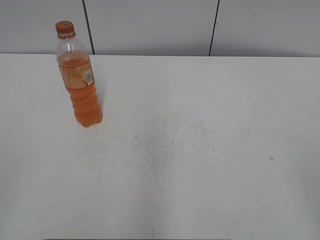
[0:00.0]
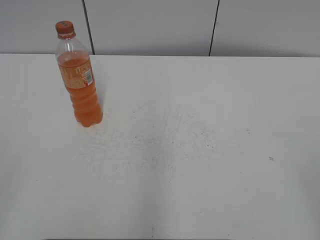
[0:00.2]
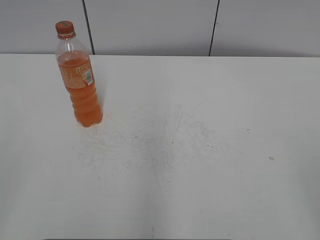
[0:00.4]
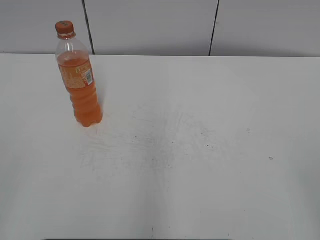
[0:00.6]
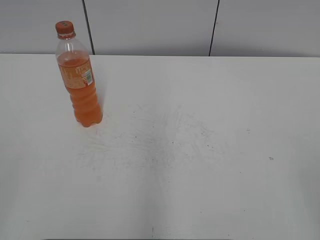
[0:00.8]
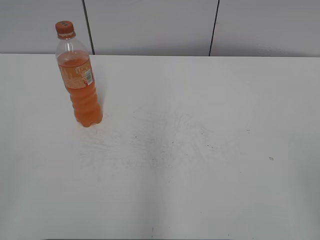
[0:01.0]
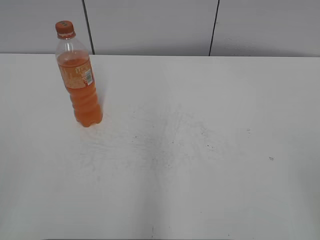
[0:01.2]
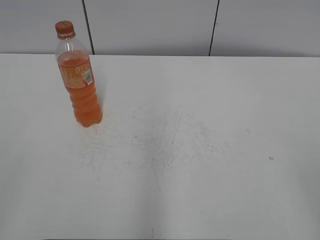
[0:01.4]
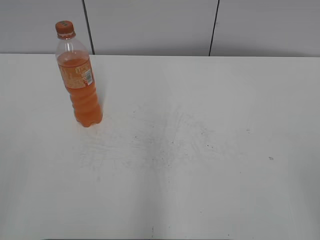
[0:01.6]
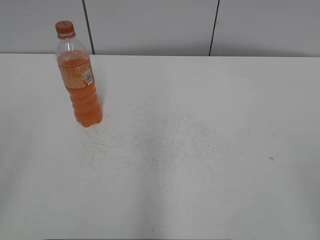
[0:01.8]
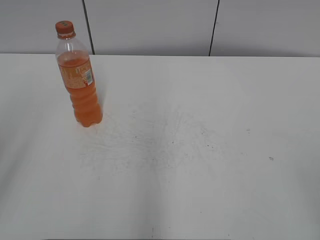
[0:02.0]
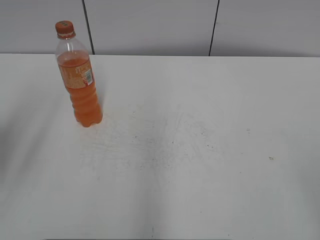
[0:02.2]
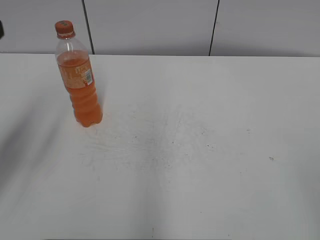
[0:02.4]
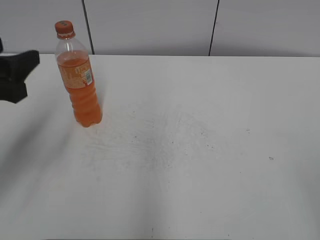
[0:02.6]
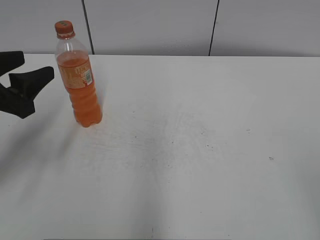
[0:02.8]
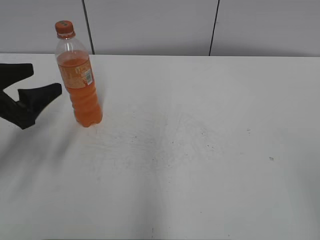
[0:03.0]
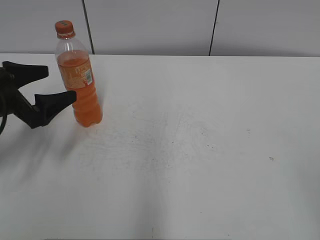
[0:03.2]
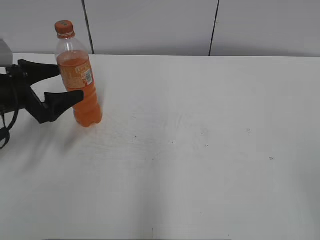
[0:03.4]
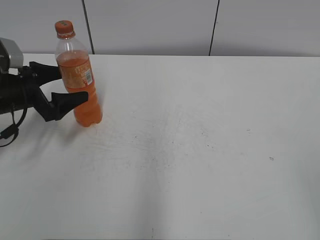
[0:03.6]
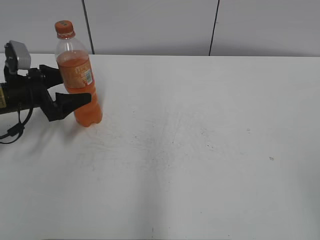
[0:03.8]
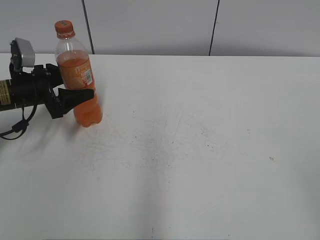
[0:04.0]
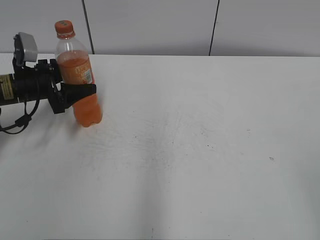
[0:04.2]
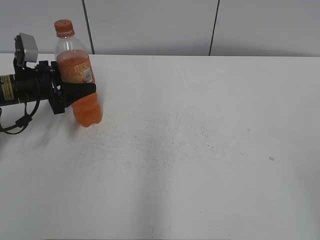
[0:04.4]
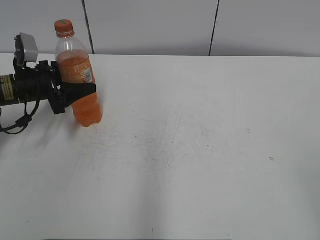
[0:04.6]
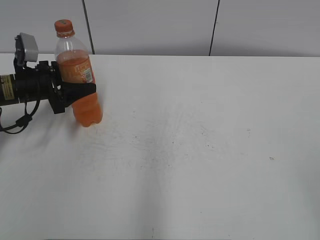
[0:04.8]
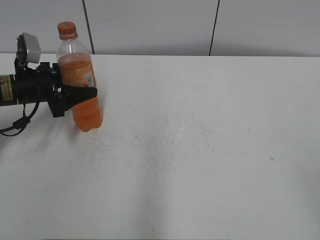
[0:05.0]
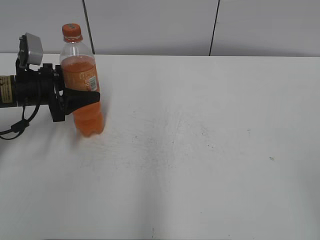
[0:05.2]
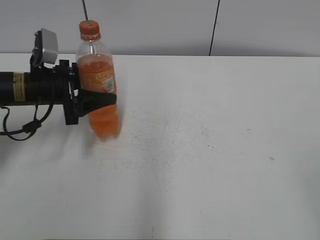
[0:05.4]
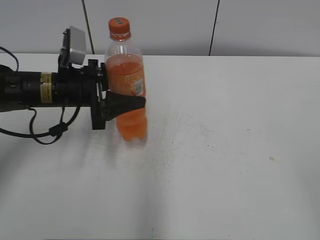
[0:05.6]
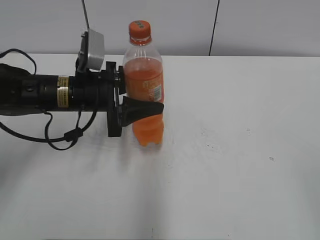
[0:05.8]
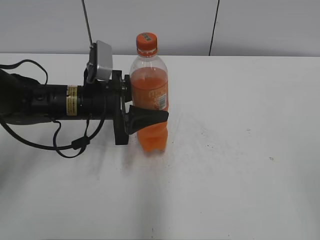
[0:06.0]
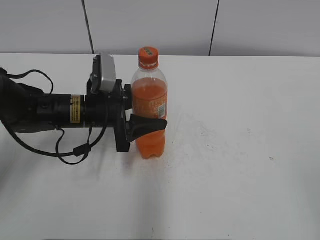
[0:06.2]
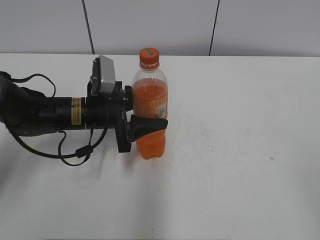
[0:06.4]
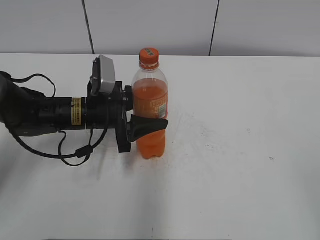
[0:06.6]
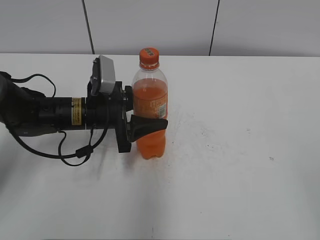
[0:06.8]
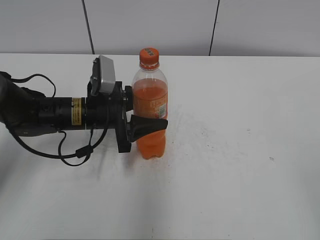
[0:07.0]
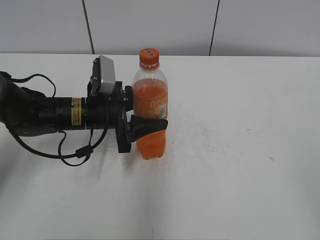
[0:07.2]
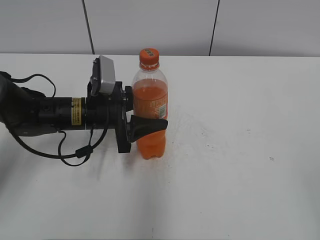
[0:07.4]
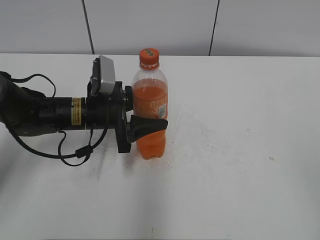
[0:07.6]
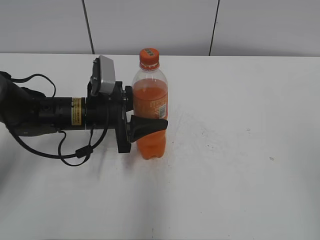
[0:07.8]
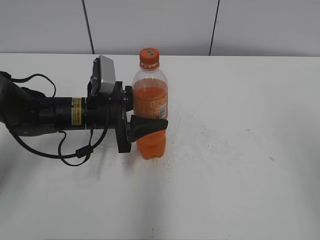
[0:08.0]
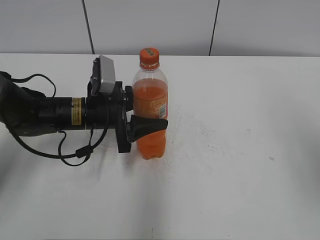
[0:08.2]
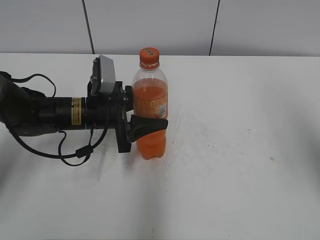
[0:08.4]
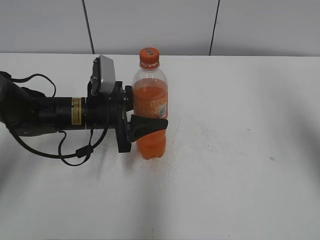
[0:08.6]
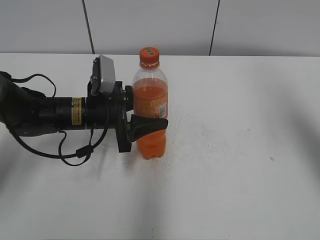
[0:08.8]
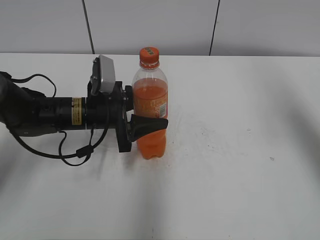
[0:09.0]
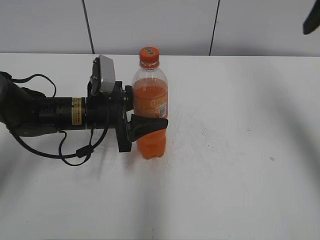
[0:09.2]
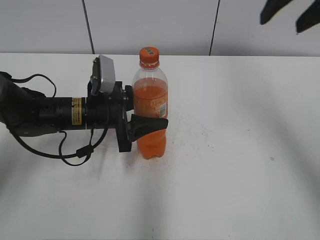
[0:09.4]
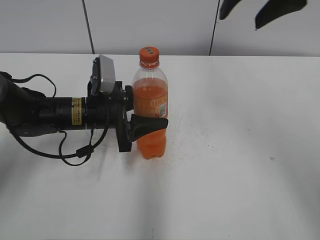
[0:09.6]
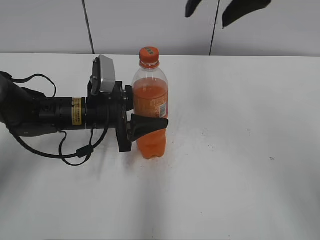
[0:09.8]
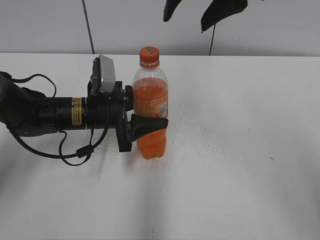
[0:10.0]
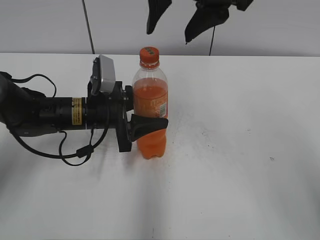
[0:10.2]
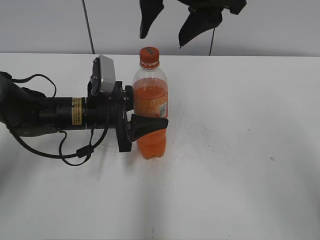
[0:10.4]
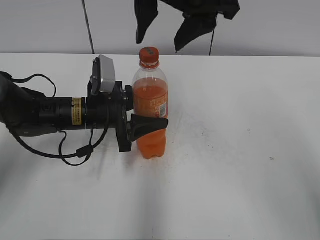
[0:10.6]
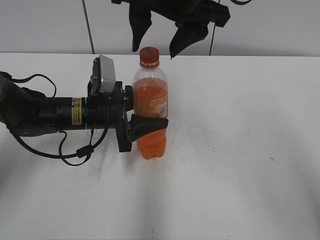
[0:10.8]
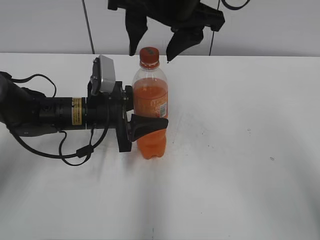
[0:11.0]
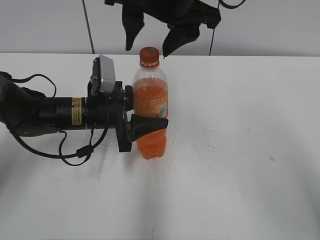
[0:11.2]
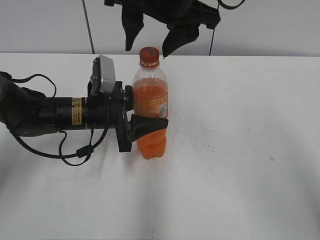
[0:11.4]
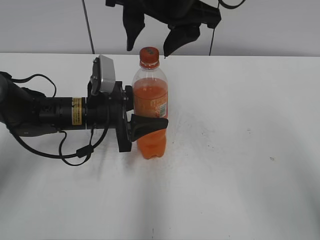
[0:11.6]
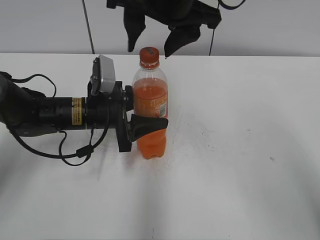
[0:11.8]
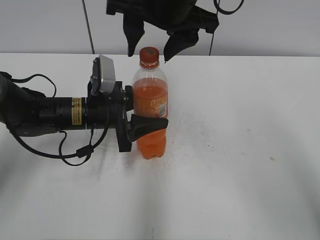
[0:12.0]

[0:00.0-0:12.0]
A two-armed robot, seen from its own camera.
Step, 0:00.0 to 0:04.4: Grab the Mirinda with the left hand.
Step, 0:04.6 to 0:06.6: Move the Mirinda from left to right.
0:01.6 to 0:03.0: The left gripper moves forward and downward, some 30 cm.
0:03.0 to 0:04.4: The left gripper travels forward and downward by about 15 cm, and opens, then closes once more.
0:04.4 to 0:06.0: The left gripper goes roughly 15 cm to the right and backward.
0:06.0 to 0:07.6: The grippers stay close to where they were, moving slightly.
0:07.6 to 0:09.0: The right gripper goes about 30 cm forward.
0:09.0 to 0:10.4: The right gripper moves to the left, approximately 25 cm.
0:10.4 to 0:12.0: The grippers stay close to where they were, moving slightly.

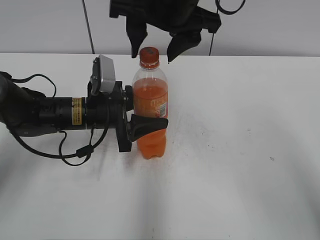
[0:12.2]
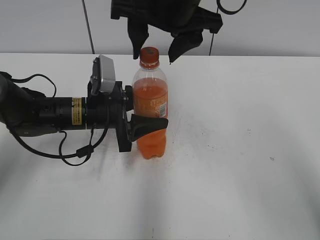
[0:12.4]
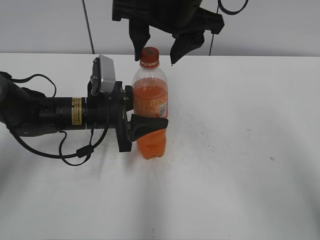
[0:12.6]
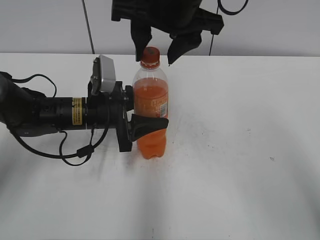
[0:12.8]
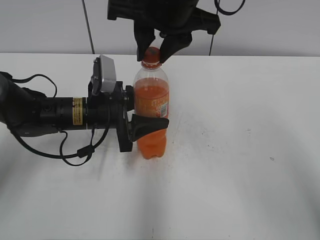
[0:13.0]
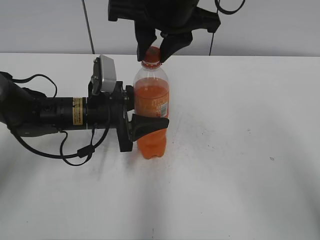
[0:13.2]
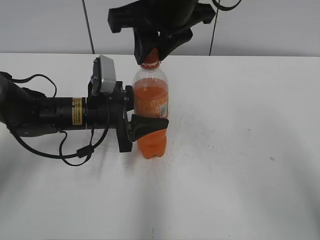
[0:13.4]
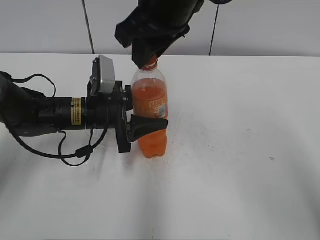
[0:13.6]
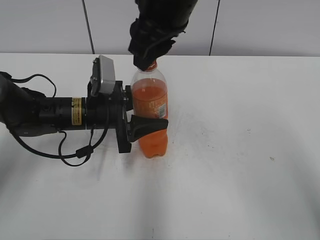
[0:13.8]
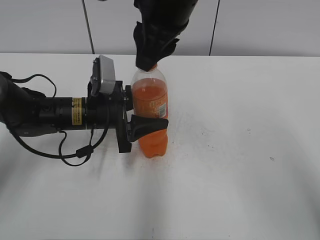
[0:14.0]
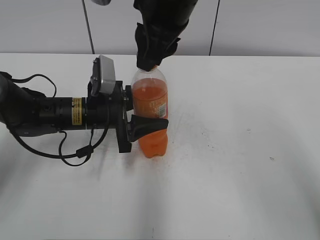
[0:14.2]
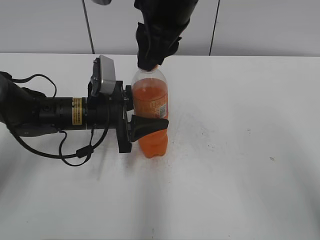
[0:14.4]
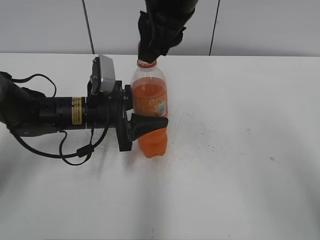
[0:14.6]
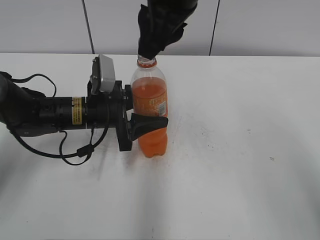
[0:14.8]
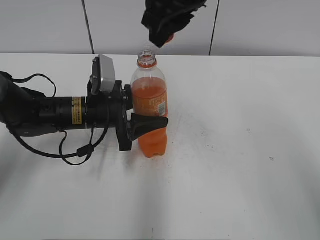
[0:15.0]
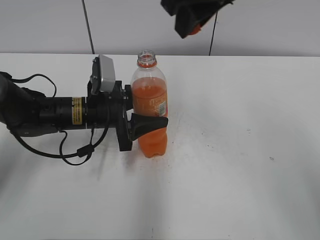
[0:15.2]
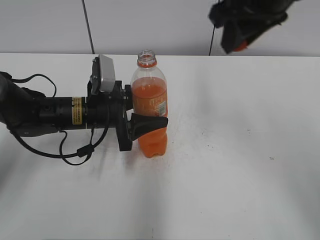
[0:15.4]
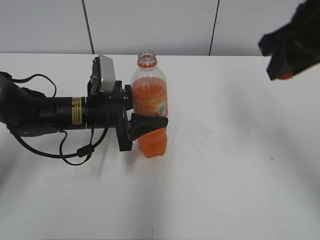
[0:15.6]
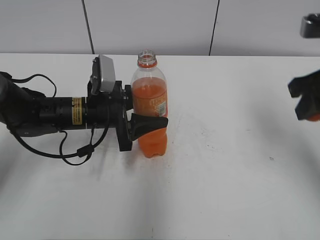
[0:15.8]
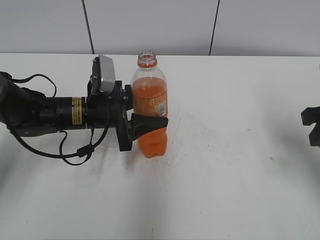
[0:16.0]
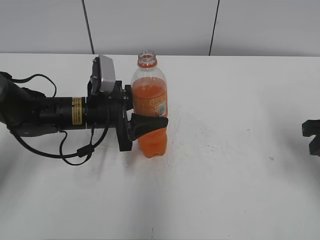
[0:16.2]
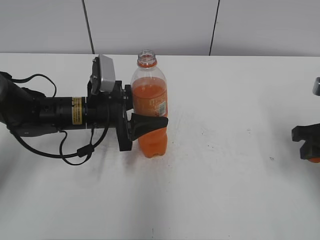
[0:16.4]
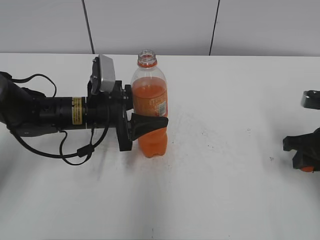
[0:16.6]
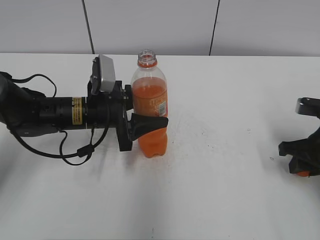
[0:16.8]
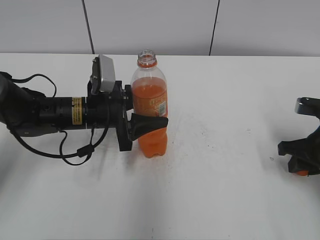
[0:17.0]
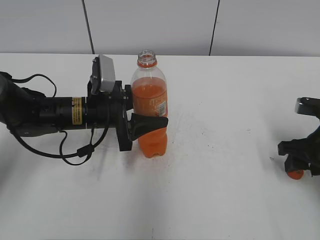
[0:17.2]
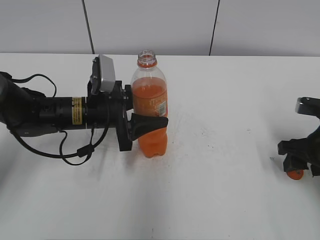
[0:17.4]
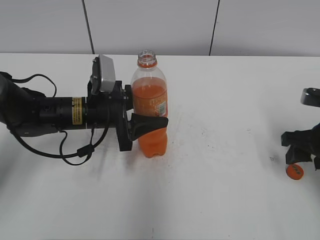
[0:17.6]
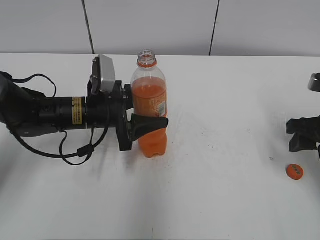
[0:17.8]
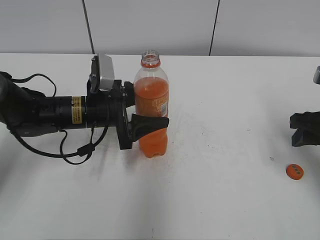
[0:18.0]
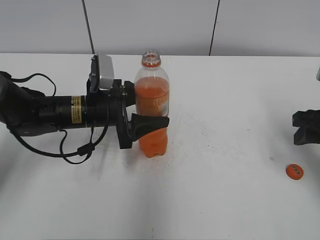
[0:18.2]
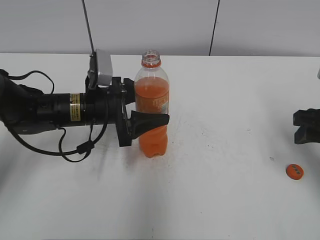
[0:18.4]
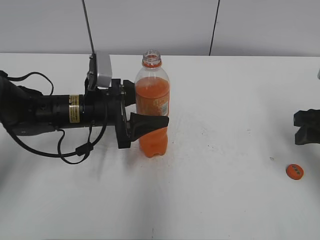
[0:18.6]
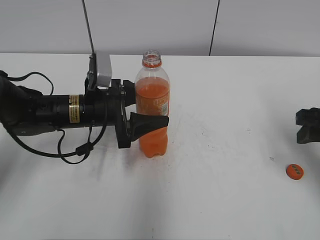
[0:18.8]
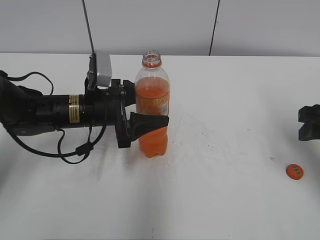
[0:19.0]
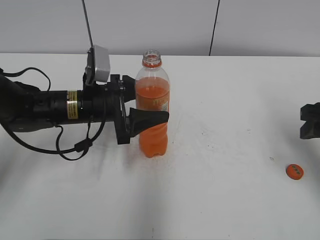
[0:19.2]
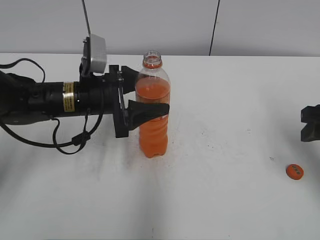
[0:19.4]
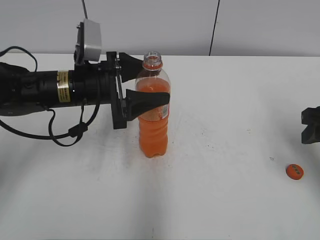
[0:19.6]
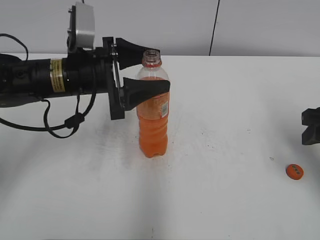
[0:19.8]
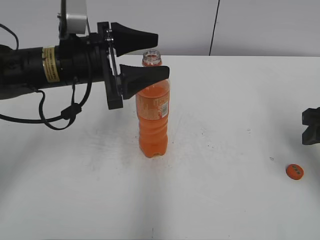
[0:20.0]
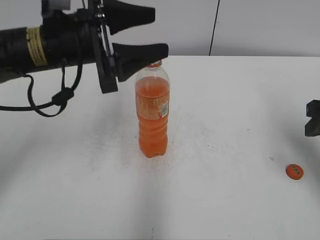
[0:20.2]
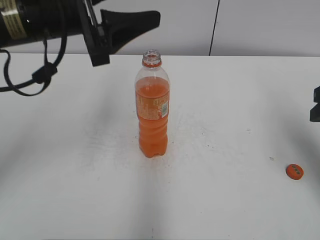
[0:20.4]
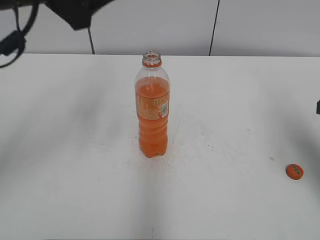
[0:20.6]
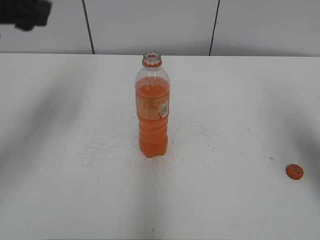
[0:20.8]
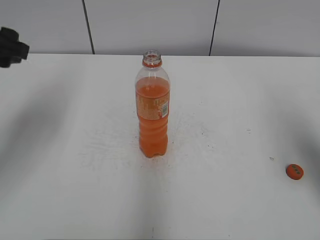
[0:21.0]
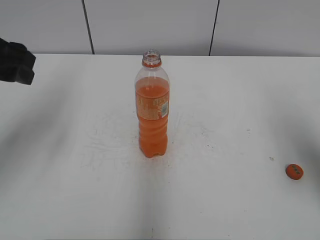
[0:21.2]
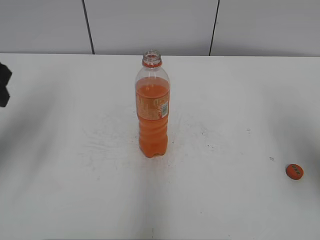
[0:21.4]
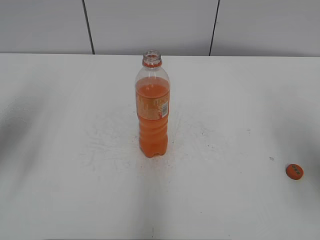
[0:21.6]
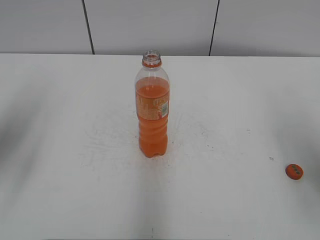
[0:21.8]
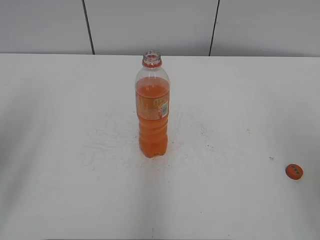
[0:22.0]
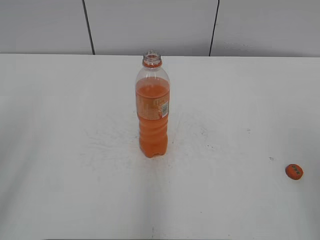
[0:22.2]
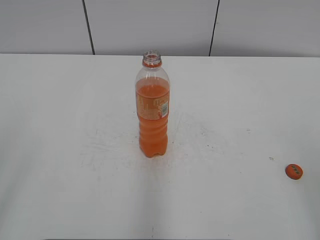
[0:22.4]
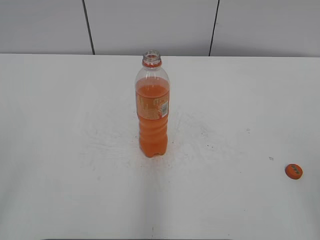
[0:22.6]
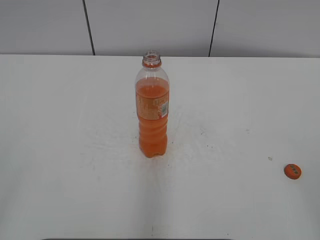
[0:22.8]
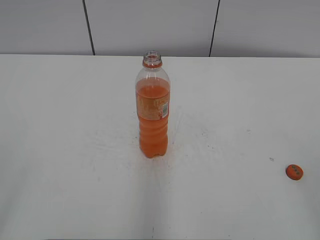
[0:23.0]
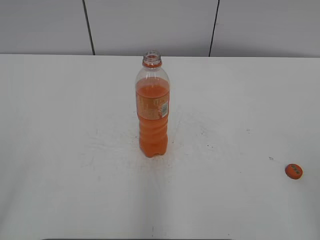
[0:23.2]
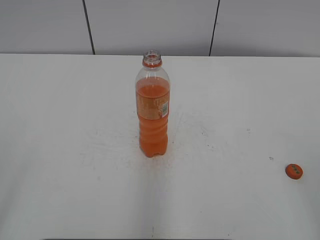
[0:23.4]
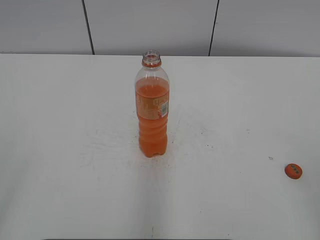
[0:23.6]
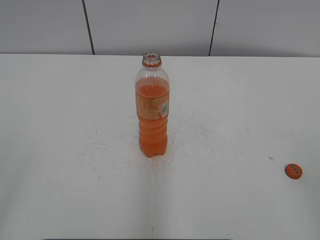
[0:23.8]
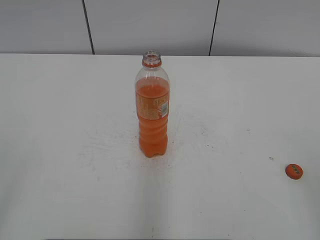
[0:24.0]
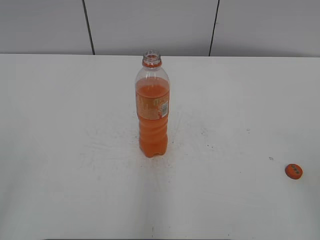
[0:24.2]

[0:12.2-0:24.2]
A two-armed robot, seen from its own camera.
Step, 0:15.0 to 0:17.4: Place the bottle cap on the right.
Step, 0:17.6 to 0:19.8: Place the Mirinda with the left hand.
0:12.2 to 0:13.8: The right gripper closes its fingers.
0:13.8 to 0:15.2: The right gripper changes place by roughly 5 cm.
0:15.2 to 0:16.6: The right gripper moves to the right and downward, about 30 cm.
0:16.6 to 0:18.2: The right gripper opens.
0:18.2 to 0:19.8: The left gripper heads upward, covering roughly 10 cm.
0:19.8 to 0:21.2: The right gripper shifts approximately 5 cm upward. The left gripper heads to the left, upward and backward, covering some 15 cm.
0:21.2 to 0:22.6: Both grippers travel together backward, roughly 20 cm.
